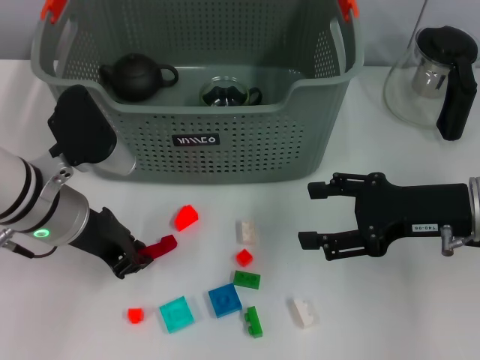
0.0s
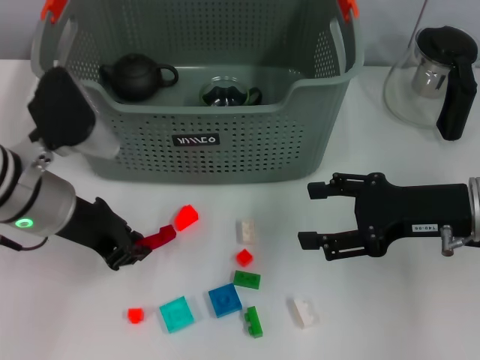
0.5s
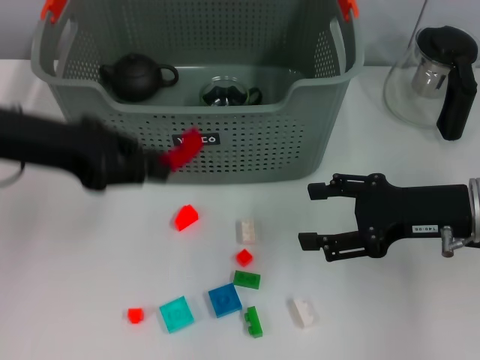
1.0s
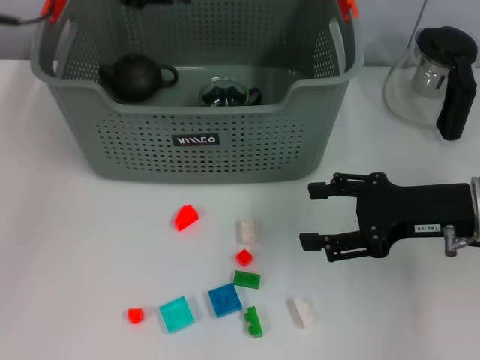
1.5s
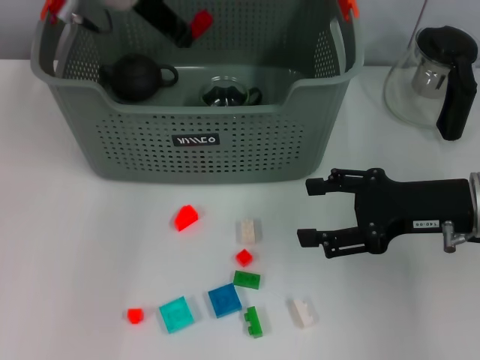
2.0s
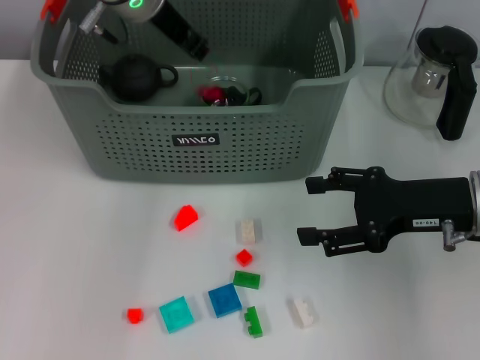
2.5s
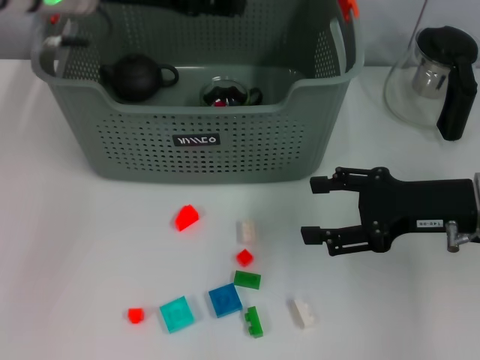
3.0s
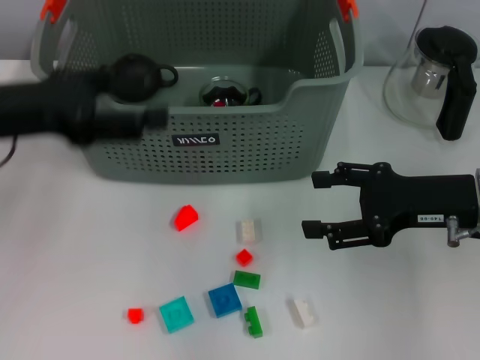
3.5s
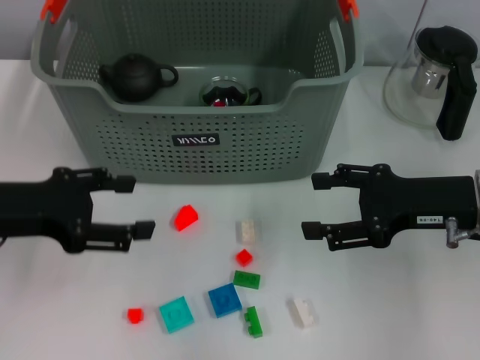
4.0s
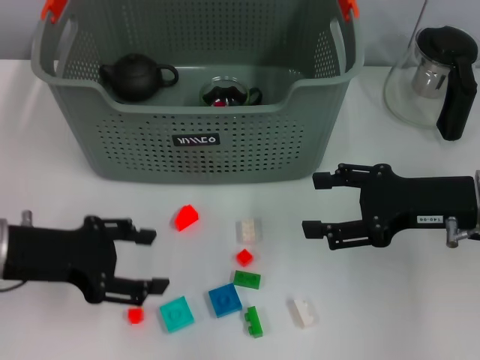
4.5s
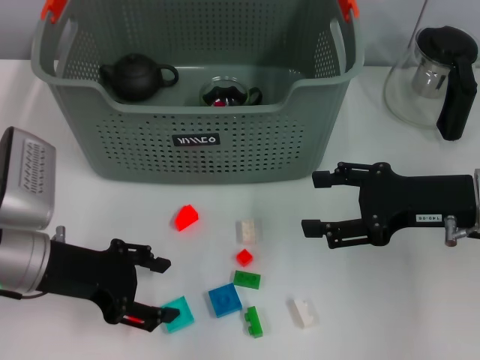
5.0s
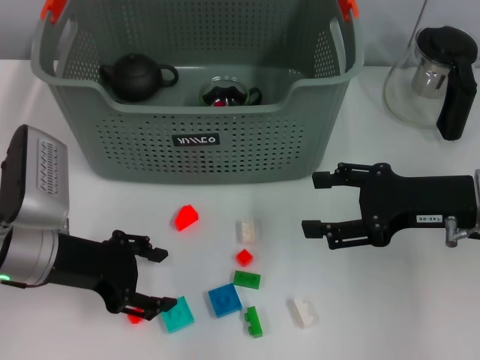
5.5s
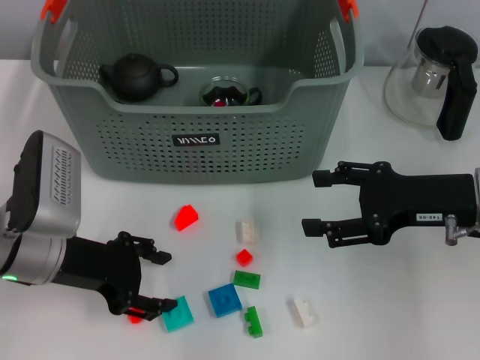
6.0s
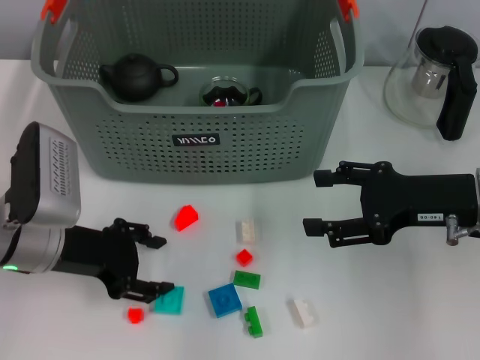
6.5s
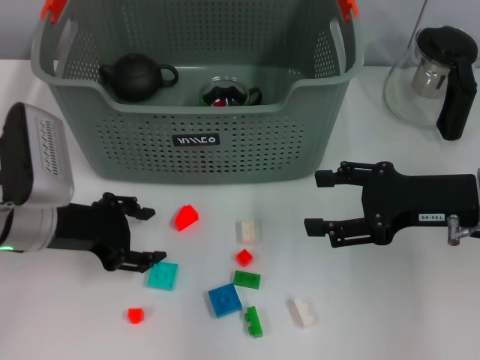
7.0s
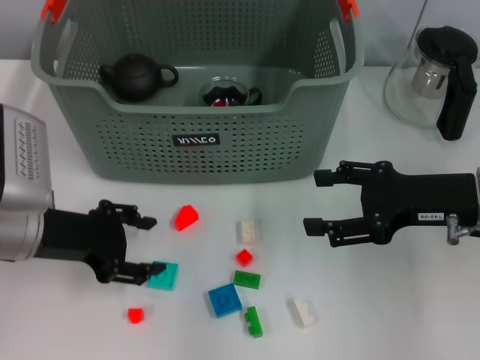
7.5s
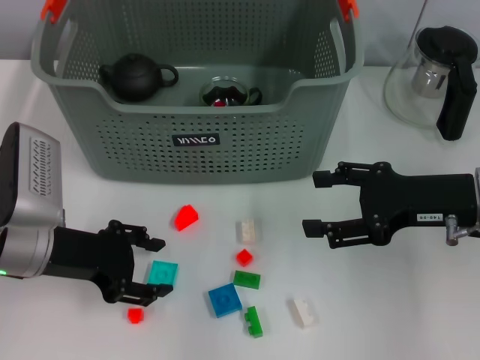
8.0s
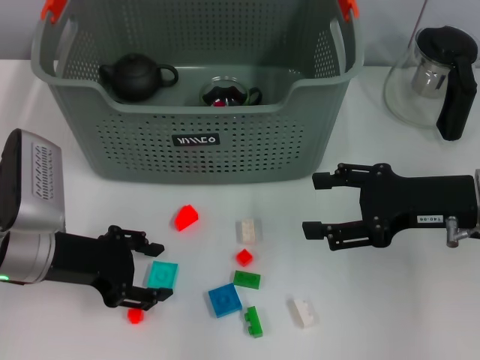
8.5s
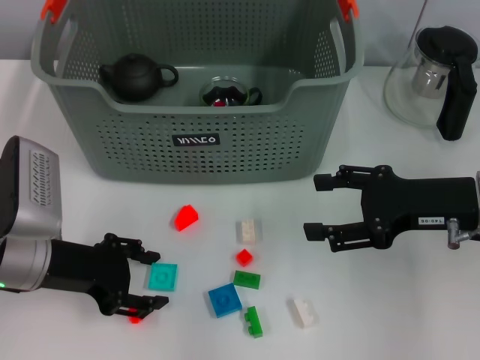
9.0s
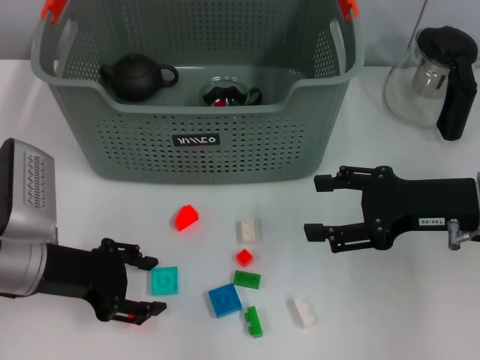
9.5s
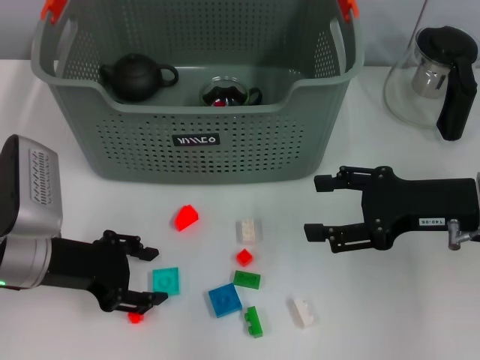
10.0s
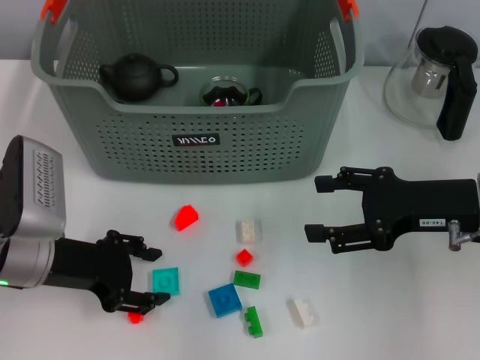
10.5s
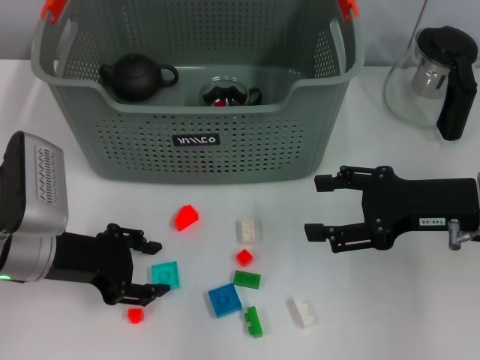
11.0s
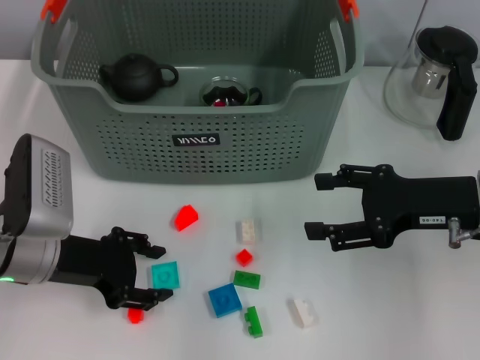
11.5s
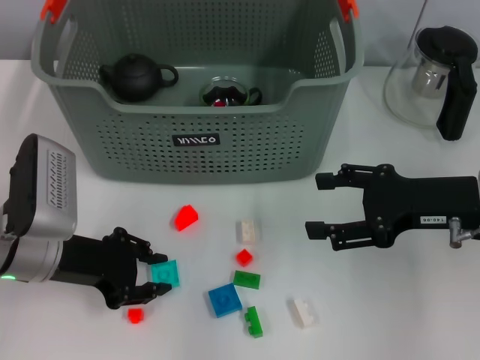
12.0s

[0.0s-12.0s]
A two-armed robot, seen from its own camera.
Task of the whole recording: pick up the teacup on the table and place it into the storage bin, pick up the block on the table and place it into the storage bin.
Step, 0.5s to 2.5s: Place the red block in the storage box with left gripper.
0.0s to 2.0s: The left gripper goes about 20 cm forward, upward and to the right.
2.0s to 4.0s: The left gripper shifts roughly 25 cm backward, to the left and downward, and opens up.
4.0s to 6.0s: The left gripper shifts approximately 10 cm downward and to the right.
6.0s to 12.0s: The grippers make only small movements.

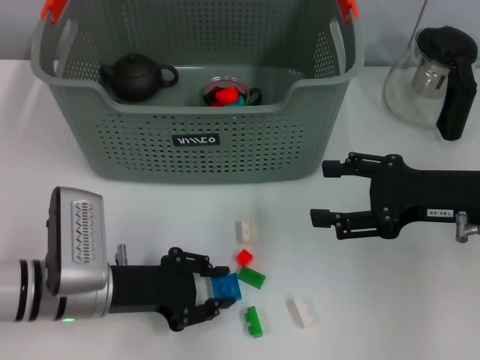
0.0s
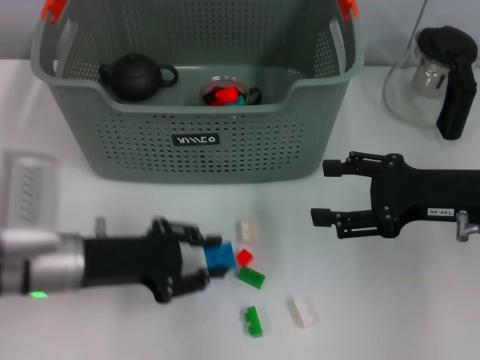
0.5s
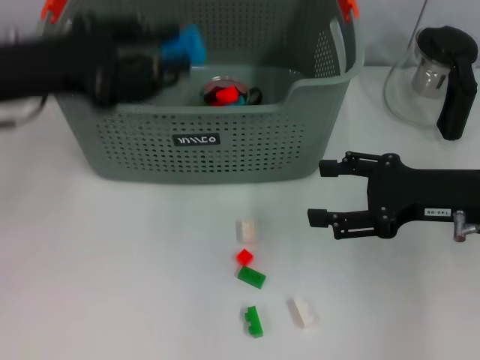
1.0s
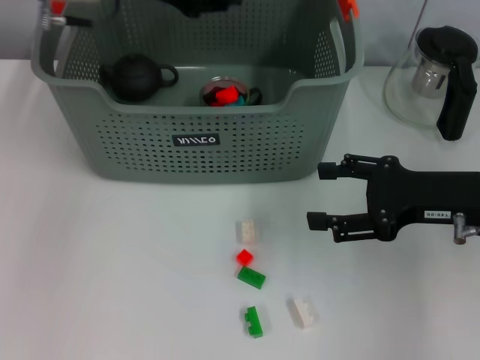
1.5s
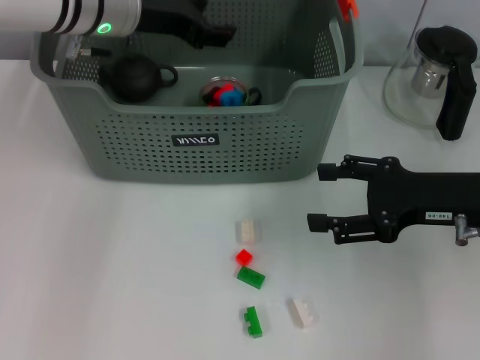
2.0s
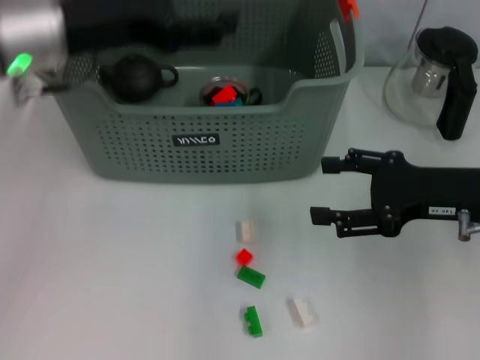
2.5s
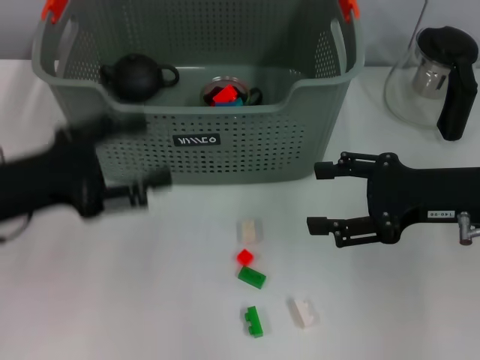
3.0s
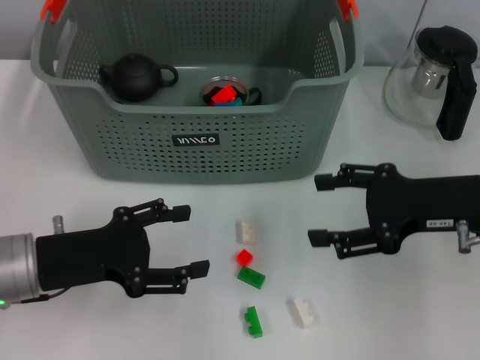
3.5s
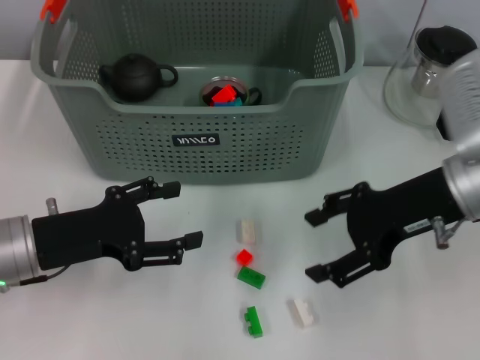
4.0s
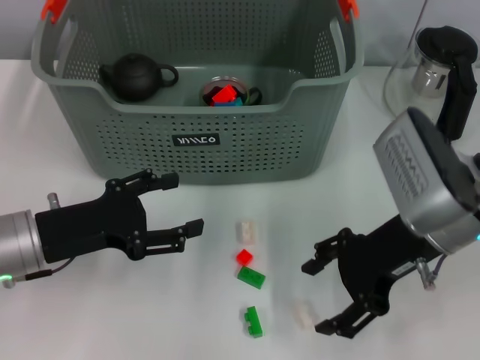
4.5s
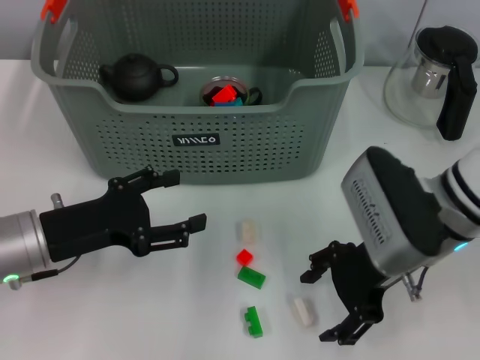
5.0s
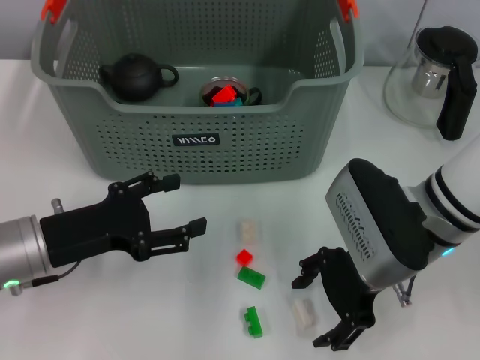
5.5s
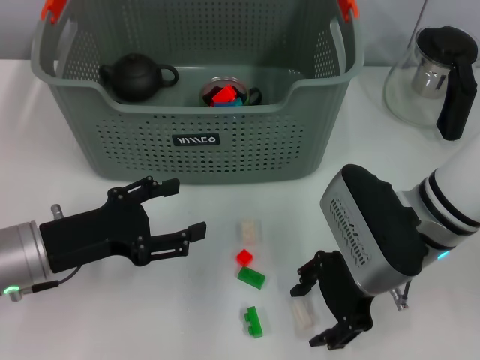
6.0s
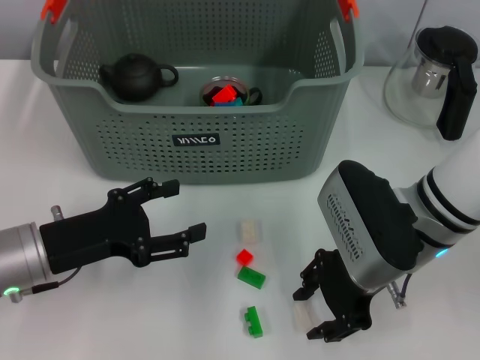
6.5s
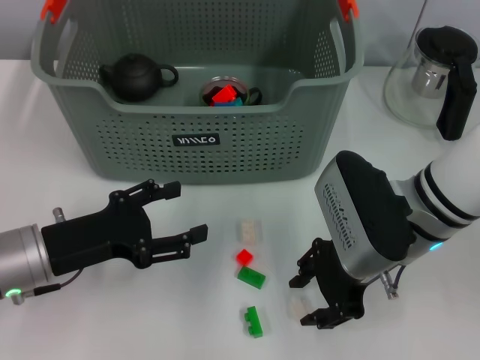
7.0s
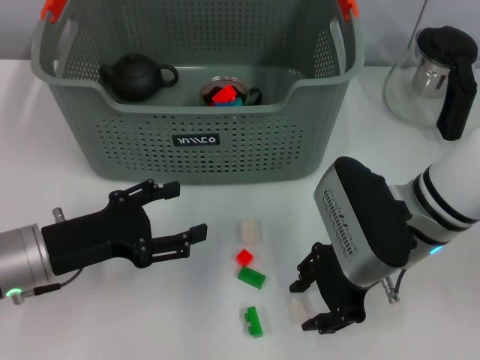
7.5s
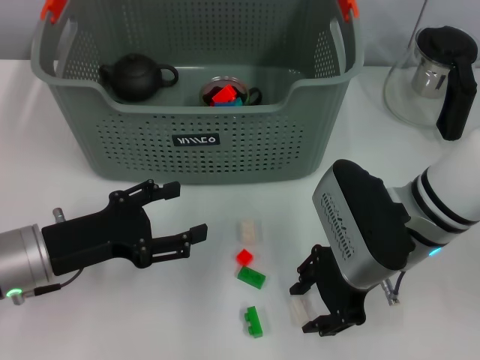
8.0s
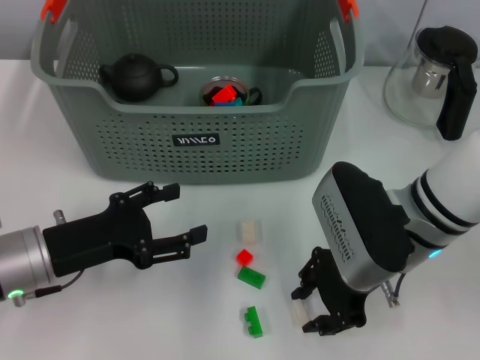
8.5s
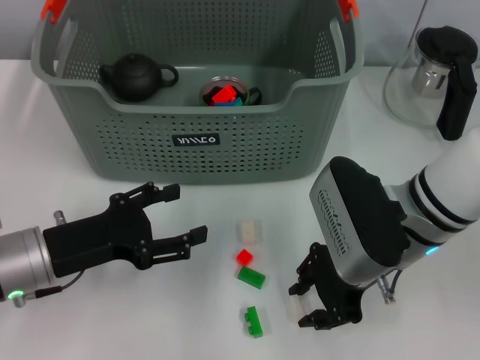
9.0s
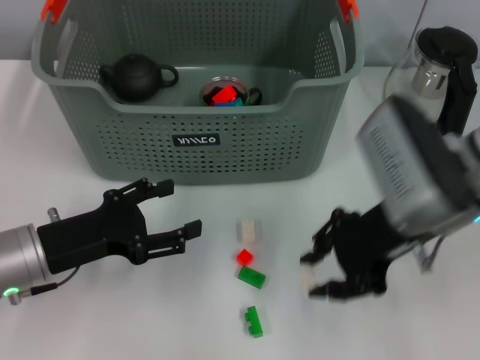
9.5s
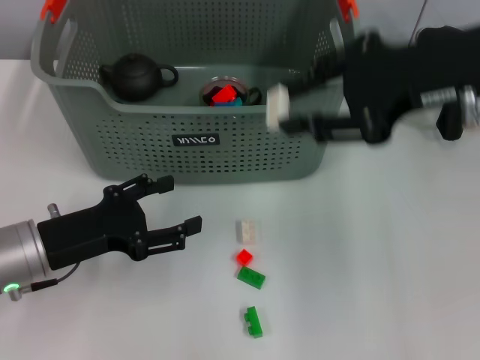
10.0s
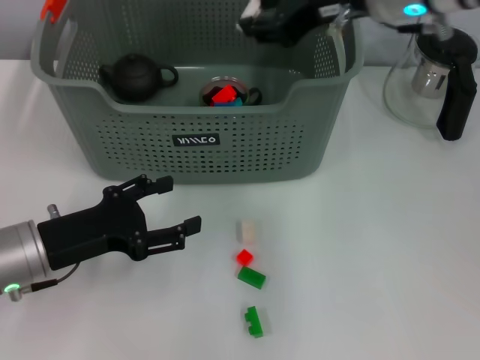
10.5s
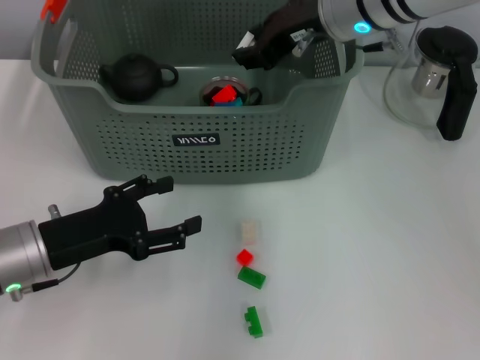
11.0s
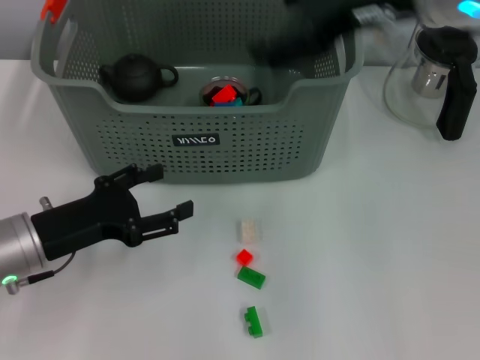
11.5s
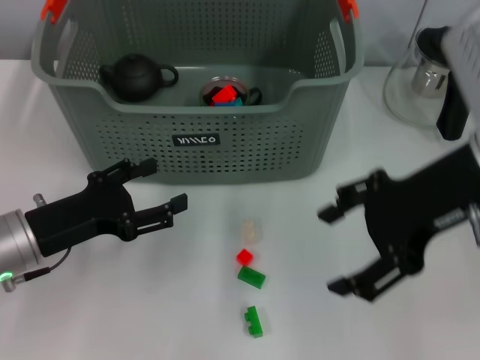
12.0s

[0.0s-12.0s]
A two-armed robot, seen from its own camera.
Task of the whole recording: pick up the teacup on the table and place it into the storage bin, pick up the block on the table and place it into the storage bin.
Step, 0.0s to 2.0s: Place the dark blue block in the storage box with left gripper.
Step, 2.5s to 8.5s: Grasp the white block with right gripper.
Step, 9.0s to 11.0s: Place the white block in the storage box with right gripper.
0.0s to 2.0s: The left gripper heads upward and forward, covering about 25 cm.
2.0s to 4.0s: The right gripper moves about 5 cm, while the left gripper heads backward, downward and to the left, covering roughly 25 cm, and opens.
4.0s to 6.0s: The right gripper is displaced to the left by roughly 5 cm.
6.0s to 8.0s: Both grippers stay put.
8.0s to 10.0s: The right gripper moves upward, approximately 15 cm.
10.0s to 12.0s: The right gripper travels forward and back again, approximately 10 cm each way, and opens its fingers.

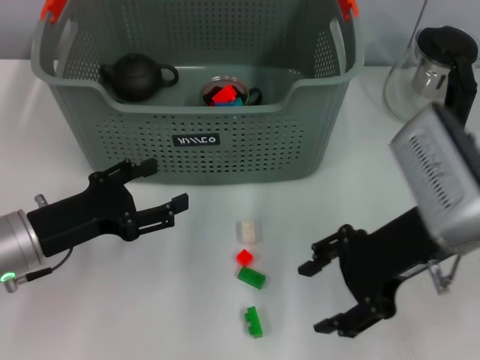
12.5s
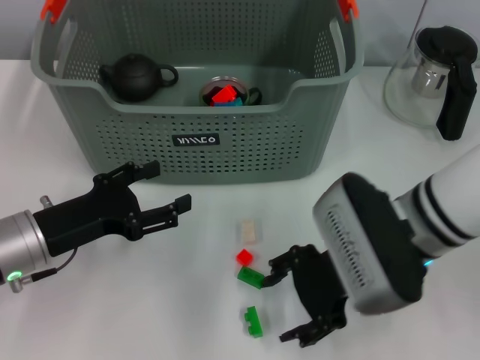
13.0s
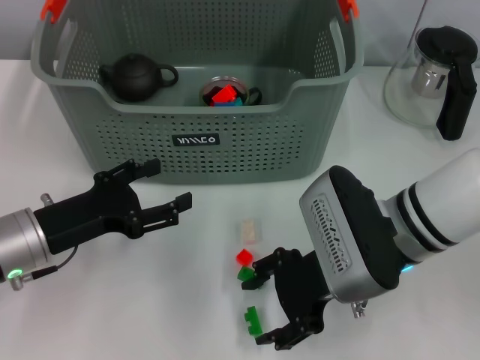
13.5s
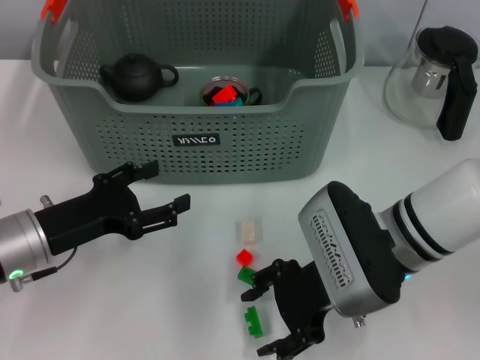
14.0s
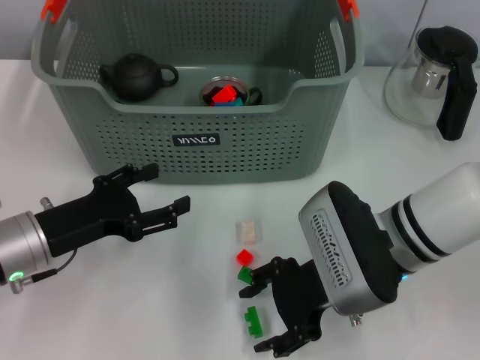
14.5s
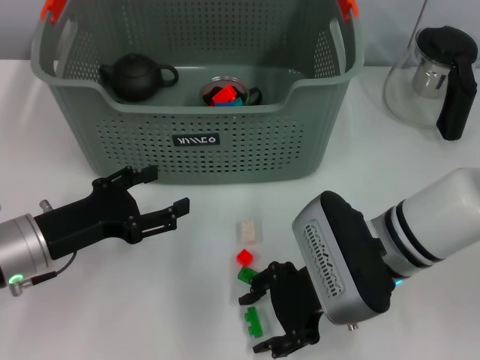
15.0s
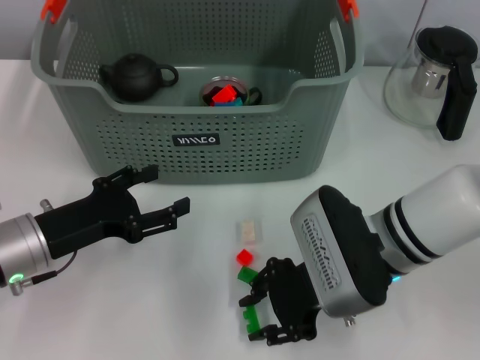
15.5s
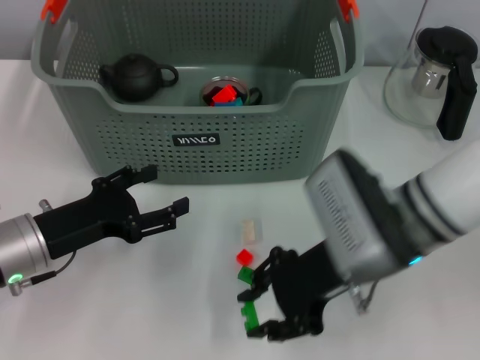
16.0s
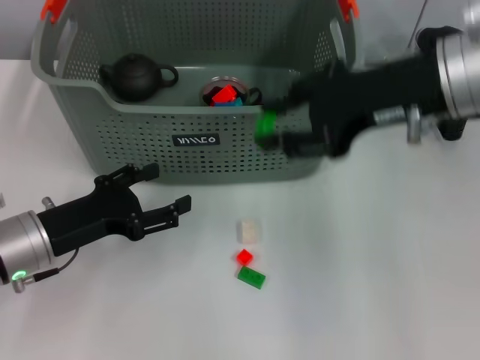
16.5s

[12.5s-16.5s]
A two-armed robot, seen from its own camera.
Task of the whole recording: pick up the teacup on the table and place it into the storage bin, pick up the block on the table and place it into the storage bin.
Step, 12.5s to 15.0s: Grasp the green block with right gripper.
12.5s to 14.5s: The right gripper is displaced downward and to the left by some 10 cm.
14.5s to 16.5s: The right gripper travels upward by approximately 15 cm, and closes.
